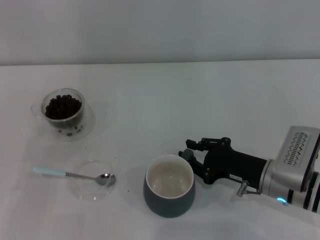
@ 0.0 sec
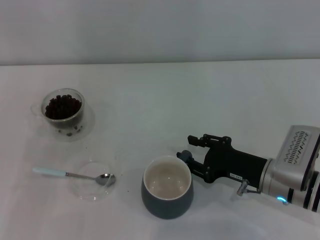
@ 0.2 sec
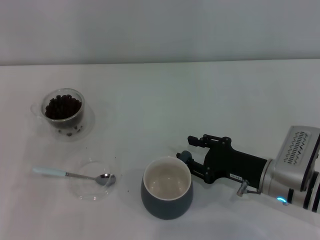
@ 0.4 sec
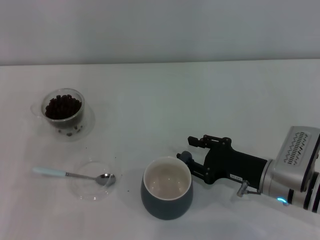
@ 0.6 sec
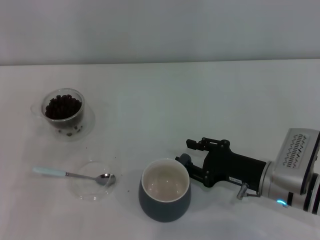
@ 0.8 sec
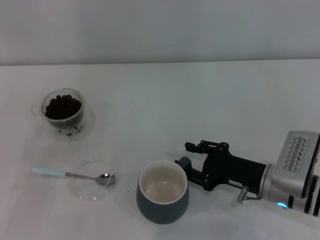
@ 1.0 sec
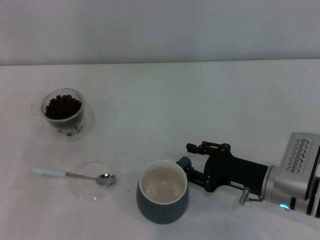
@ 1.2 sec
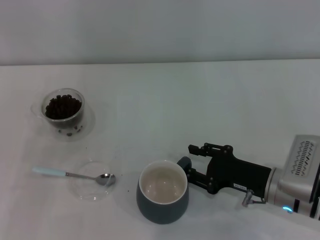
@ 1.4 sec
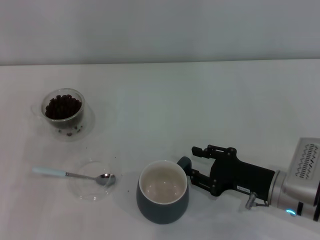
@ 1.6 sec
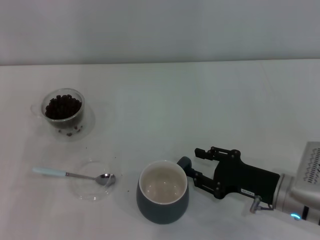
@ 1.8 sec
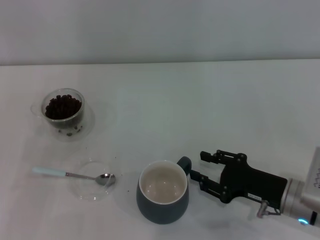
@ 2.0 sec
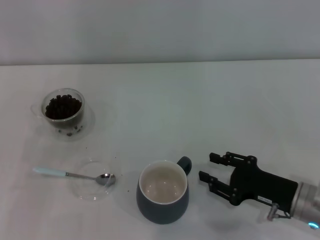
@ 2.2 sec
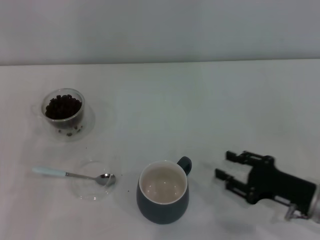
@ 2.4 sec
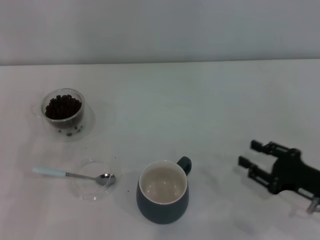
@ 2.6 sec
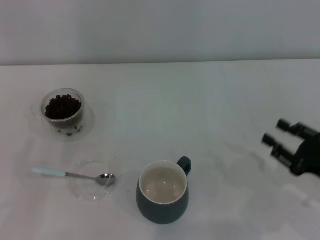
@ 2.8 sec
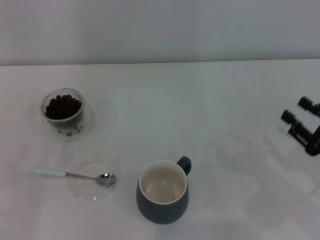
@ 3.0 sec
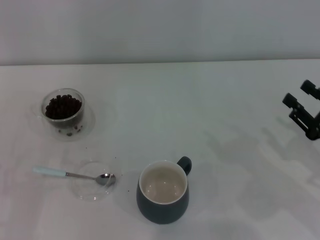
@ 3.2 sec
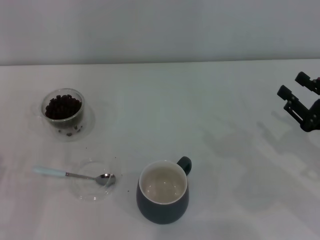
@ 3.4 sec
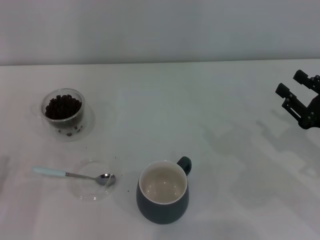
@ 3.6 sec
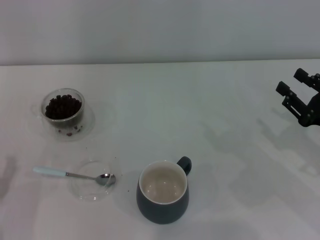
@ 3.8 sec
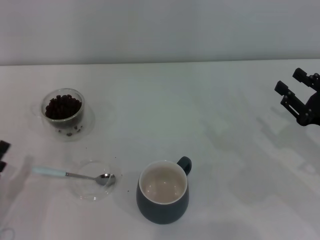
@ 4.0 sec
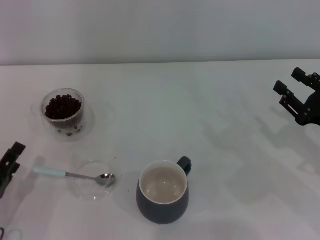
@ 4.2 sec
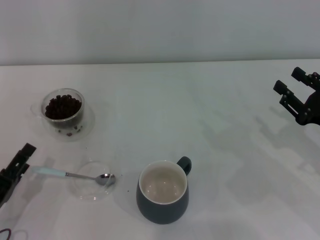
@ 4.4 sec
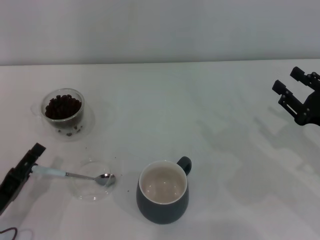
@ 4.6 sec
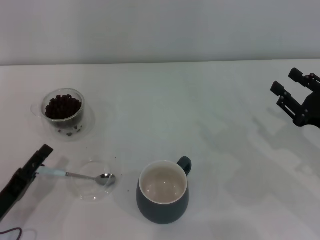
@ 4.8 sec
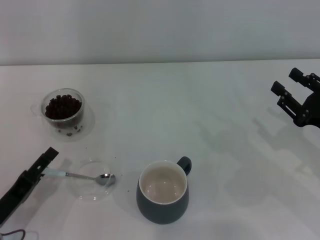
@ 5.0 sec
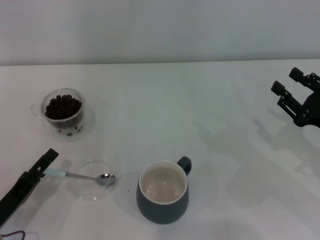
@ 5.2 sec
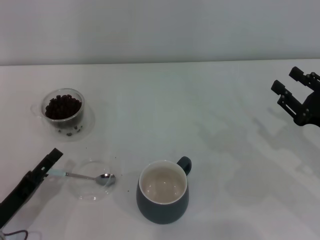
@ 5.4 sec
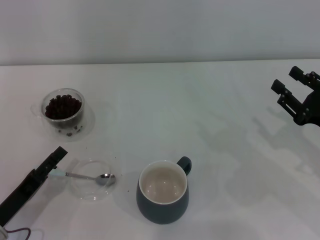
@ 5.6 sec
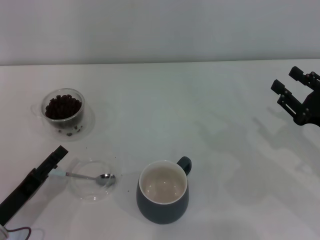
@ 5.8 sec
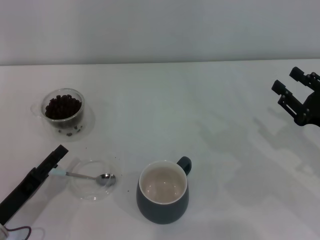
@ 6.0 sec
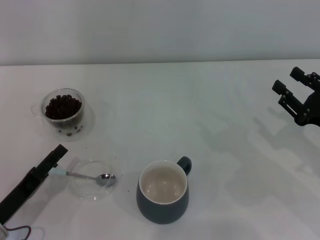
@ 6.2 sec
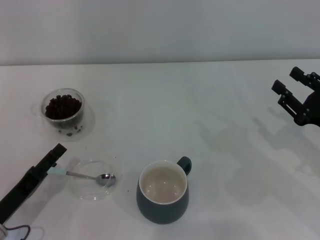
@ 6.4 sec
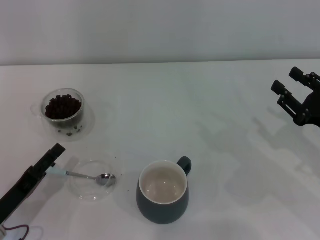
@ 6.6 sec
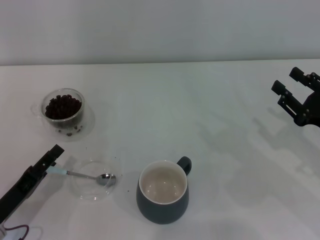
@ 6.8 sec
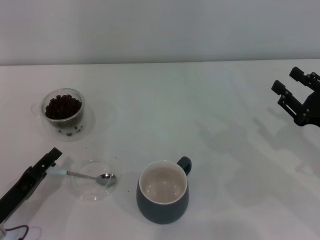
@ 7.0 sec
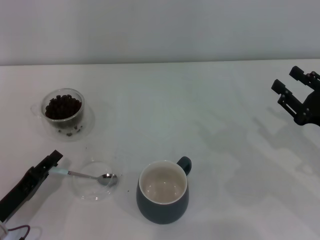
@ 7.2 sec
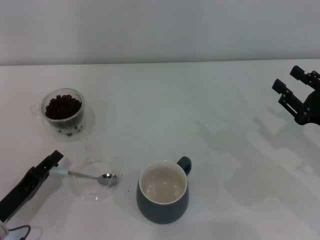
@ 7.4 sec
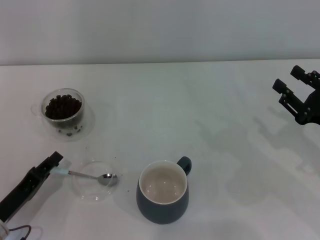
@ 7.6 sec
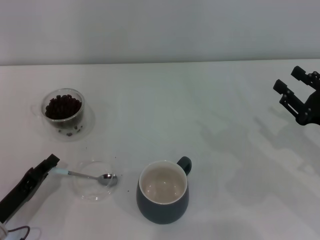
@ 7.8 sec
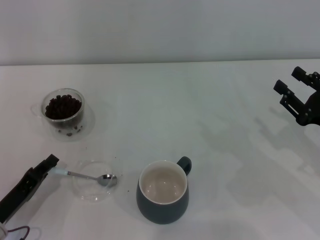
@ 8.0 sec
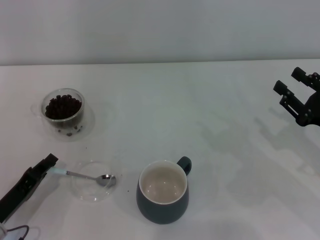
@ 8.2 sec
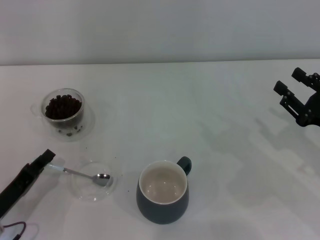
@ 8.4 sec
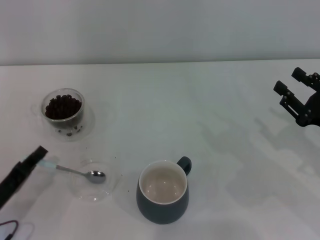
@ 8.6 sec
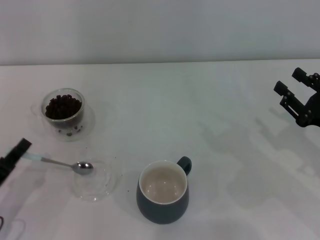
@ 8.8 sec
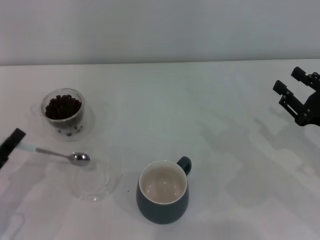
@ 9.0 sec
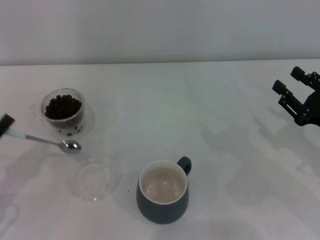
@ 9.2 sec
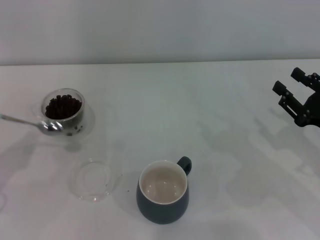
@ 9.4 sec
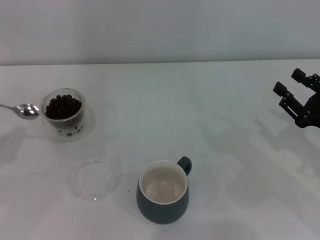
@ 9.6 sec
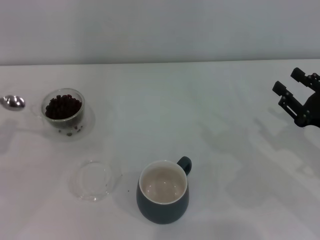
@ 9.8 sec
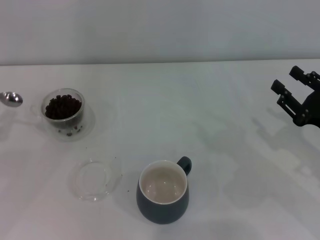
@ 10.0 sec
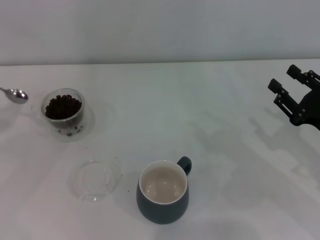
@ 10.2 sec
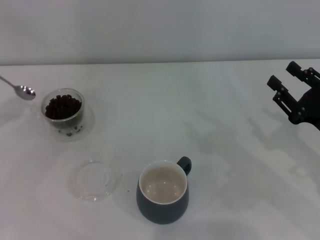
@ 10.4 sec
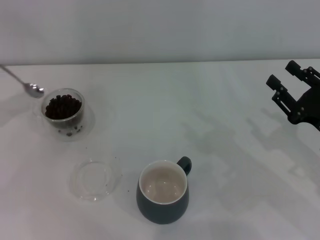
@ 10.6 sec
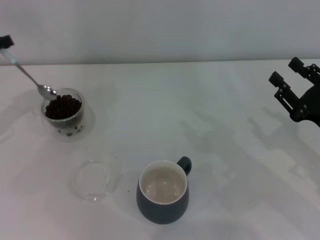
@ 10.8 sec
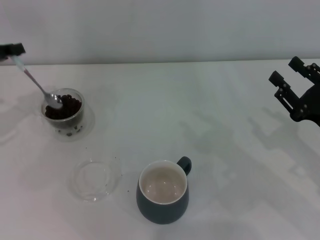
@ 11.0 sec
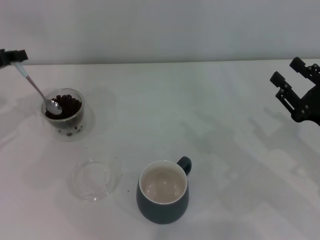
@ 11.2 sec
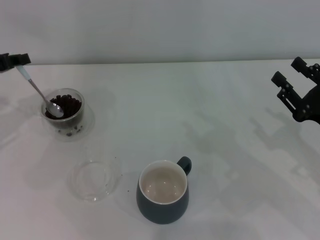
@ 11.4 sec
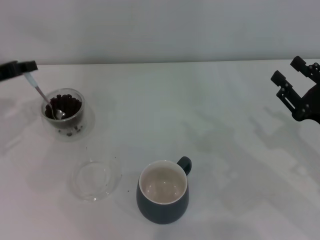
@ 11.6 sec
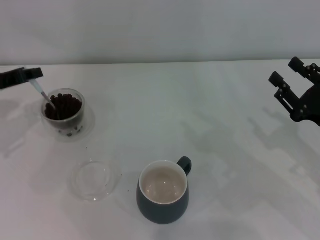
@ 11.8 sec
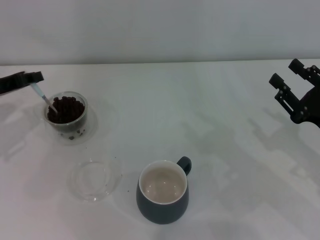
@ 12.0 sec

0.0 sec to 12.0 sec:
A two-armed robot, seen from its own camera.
Task of the whole recording: Use a blue spoon to take out the coffee beans from the glass and pour them into the gray cup.
Step, 0.0 sec to 2.0 sec: Move the cup to the center of view with the left gripper.
Step, 2.2 sec to 9.0 sec: Pick up the spoon with the right gripper.
0.0 sec to 1.6 sec: The right gripper opens up.
1.6 sec to 3.0 sec: The left gripper changes place by about 5 cm. Meanwhile the right gripper goes approximately 10 cm to the right.
3.0 sec to 4.4 sec: The left gripper shifts by some 5 cm.
4.4 sec to 6.0 sec: The grippers stay close to where they were, moving slightly.
6.0 sec to 7.6 sec: The left gripper closes.
7.6 sec to 9.0 sec: There are only small adjustments of the grippers.
9.0 sec to 10.4 sec: The left gripper goes roughly 20 cm forward, upward and to the left.
10.4 sec to 12.0 sec: The left gripper travels to the right by roughly 5 cm.

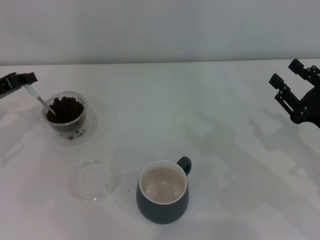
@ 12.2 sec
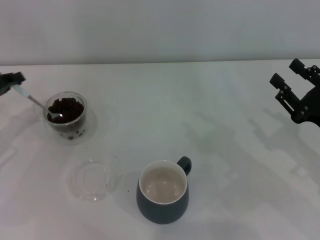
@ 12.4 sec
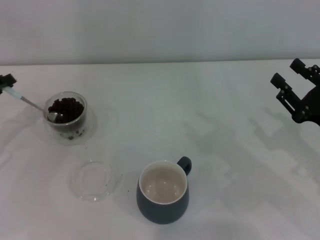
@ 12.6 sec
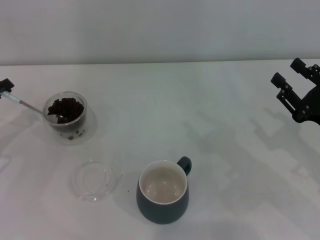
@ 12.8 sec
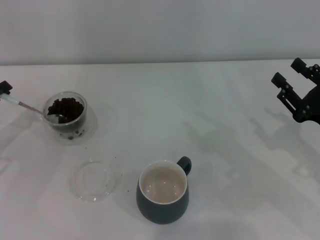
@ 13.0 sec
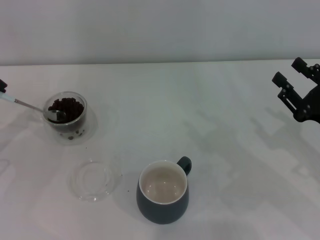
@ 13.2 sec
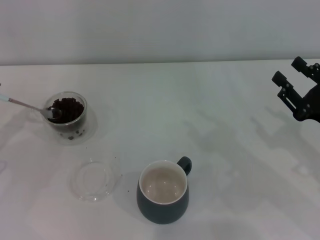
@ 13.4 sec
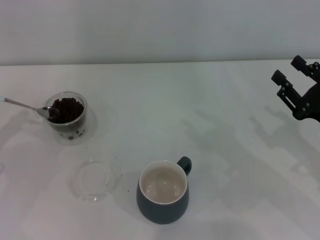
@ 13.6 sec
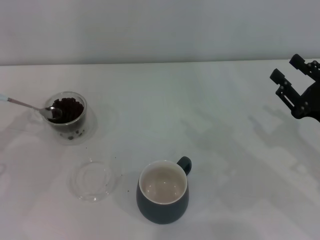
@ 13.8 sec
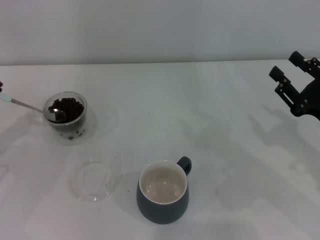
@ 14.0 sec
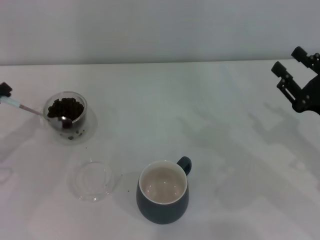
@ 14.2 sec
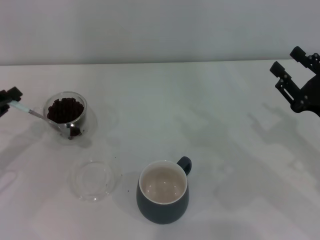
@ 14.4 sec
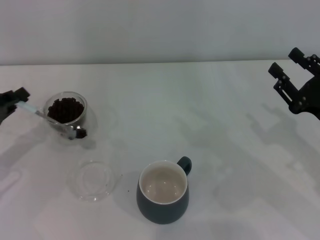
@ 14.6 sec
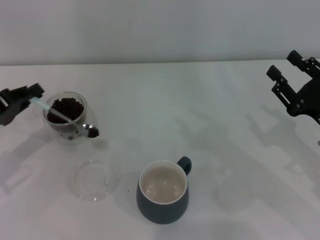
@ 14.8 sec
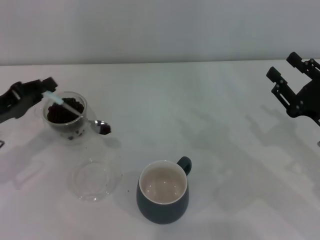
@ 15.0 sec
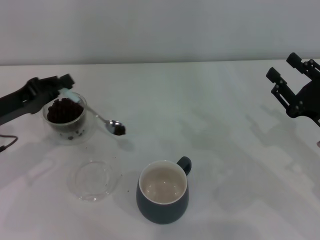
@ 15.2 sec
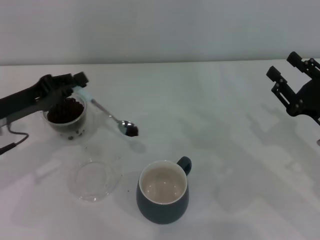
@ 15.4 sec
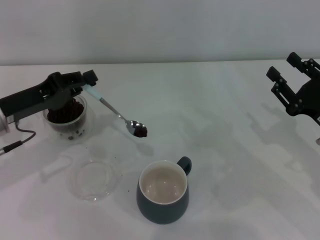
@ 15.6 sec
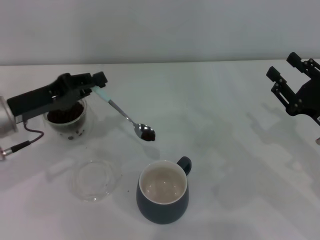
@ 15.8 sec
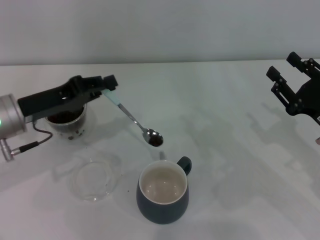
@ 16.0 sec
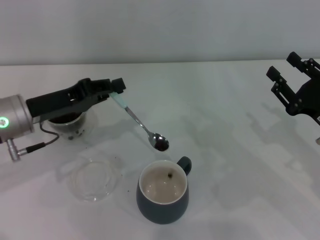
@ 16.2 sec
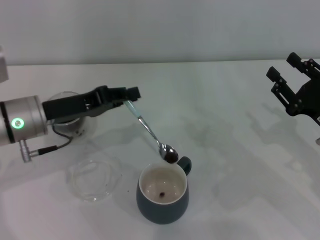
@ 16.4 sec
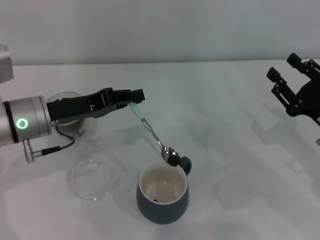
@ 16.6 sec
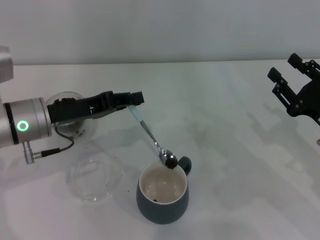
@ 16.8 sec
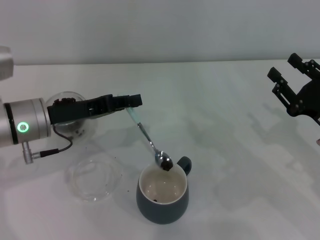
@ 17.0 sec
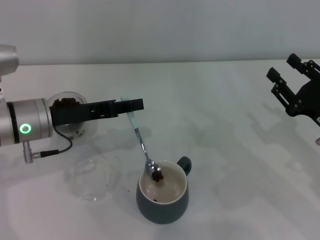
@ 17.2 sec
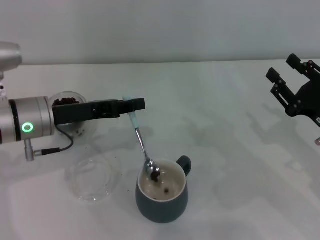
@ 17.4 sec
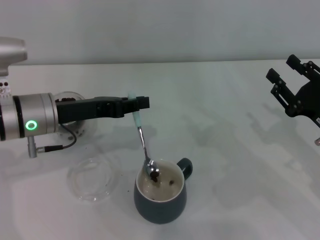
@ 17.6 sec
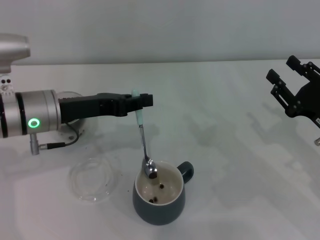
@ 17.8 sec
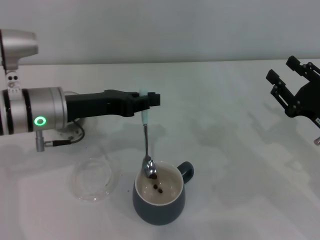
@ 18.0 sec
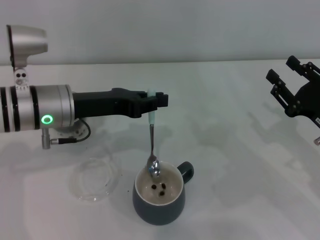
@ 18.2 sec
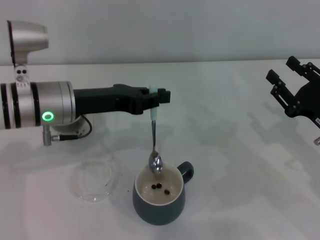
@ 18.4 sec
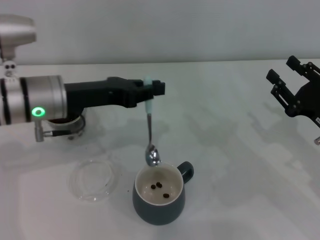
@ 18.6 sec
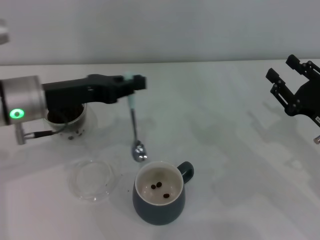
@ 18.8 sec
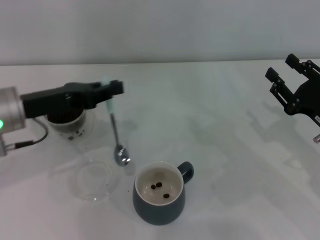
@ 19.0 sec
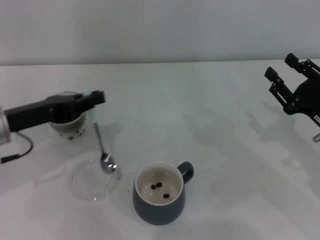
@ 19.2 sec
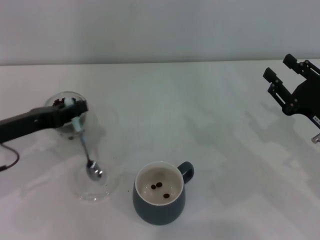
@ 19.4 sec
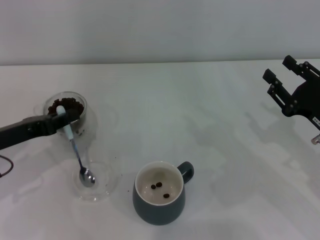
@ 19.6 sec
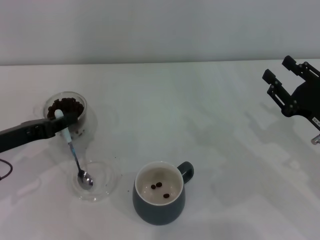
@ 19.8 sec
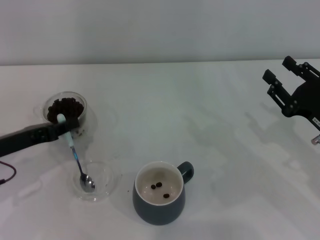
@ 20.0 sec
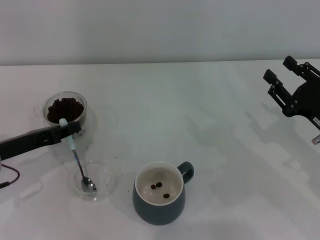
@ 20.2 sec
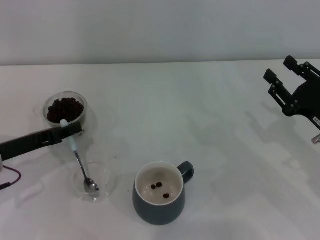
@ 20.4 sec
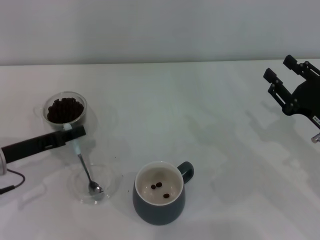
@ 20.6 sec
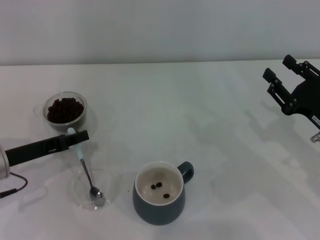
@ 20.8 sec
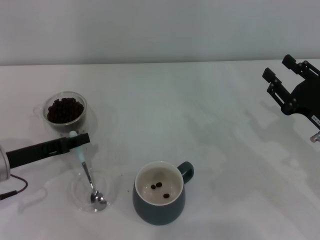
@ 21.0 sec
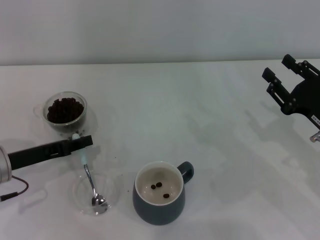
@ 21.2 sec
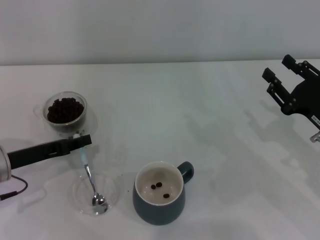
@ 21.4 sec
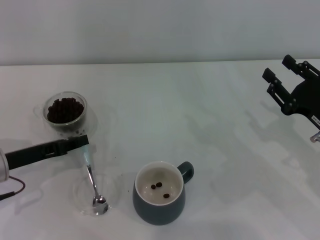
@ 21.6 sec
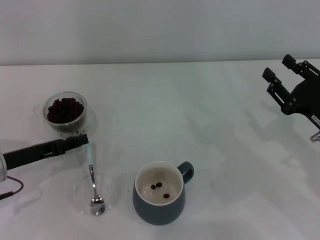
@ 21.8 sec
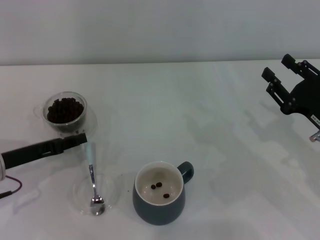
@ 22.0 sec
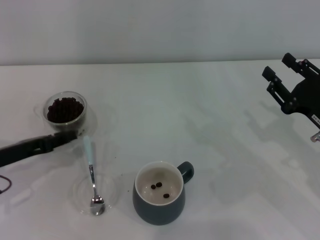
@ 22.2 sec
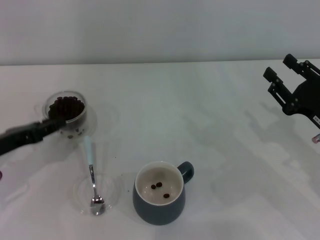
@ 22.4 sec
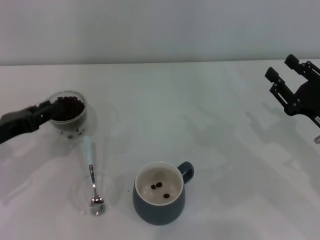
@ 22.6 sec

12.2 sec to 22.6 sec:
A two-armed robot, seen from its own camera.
Task of the whole recording: Use a blue spoon to take out the coffee beans from the glass and pour them into the gray cup.
12.2 sec to 13.6 sec: The left gripper moves backward, about 5 cm.
13.6 sec to 15.2 sec: The left gripper travels to the right by roughly 10 cm.
15.2 sec to 16.6 sec: The left gripper shifts roughly 10 cm to the right.
18.2 sec to 19.6 sec: The left gripper moves to the left, about 10 cm.
19.6 sec to 22.6 sec: The grippers make only small movements.
